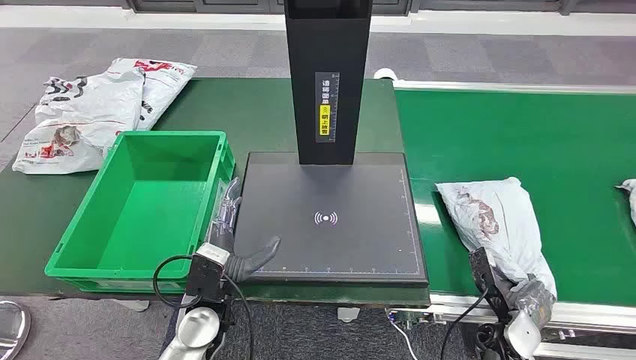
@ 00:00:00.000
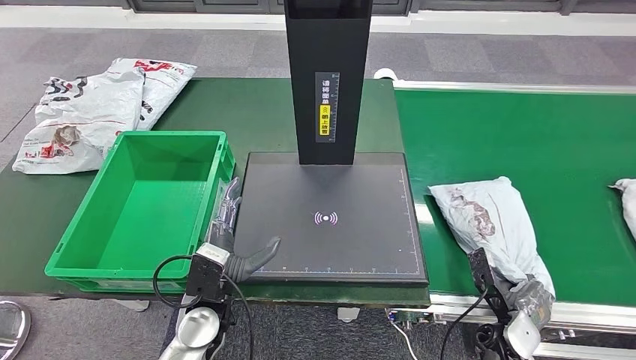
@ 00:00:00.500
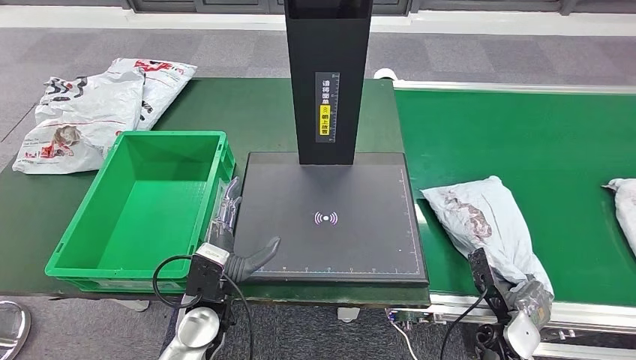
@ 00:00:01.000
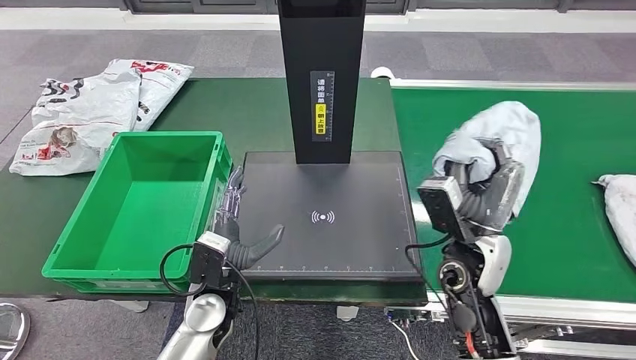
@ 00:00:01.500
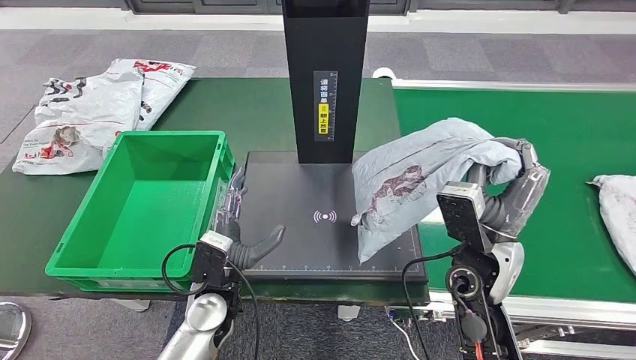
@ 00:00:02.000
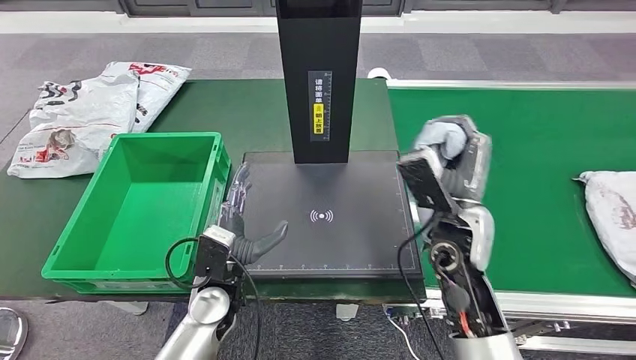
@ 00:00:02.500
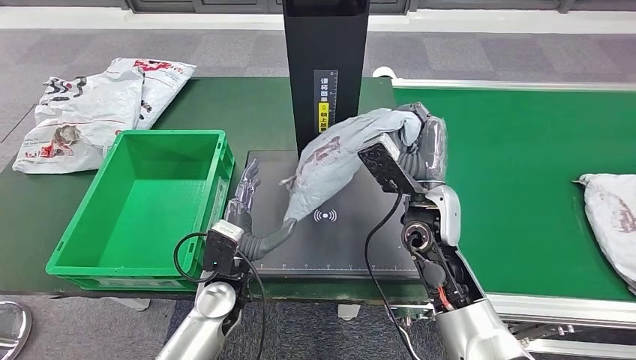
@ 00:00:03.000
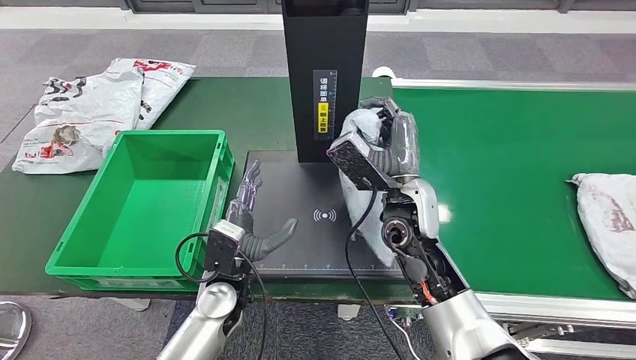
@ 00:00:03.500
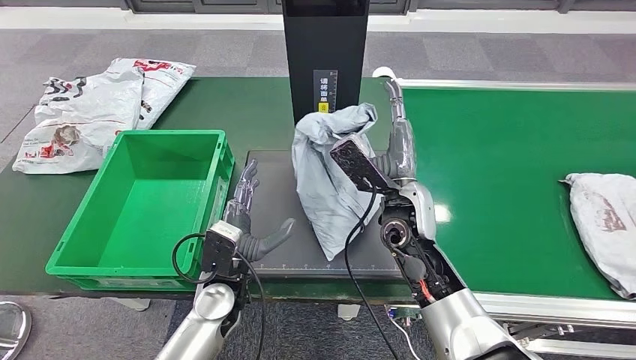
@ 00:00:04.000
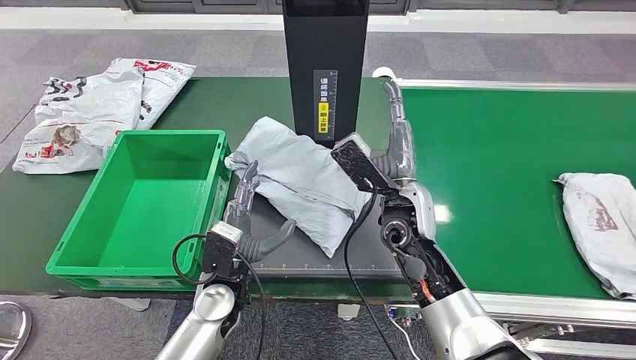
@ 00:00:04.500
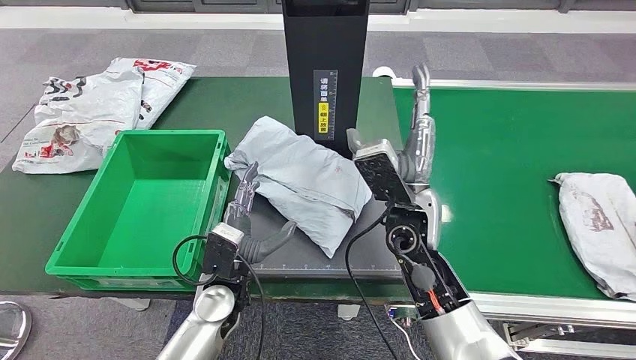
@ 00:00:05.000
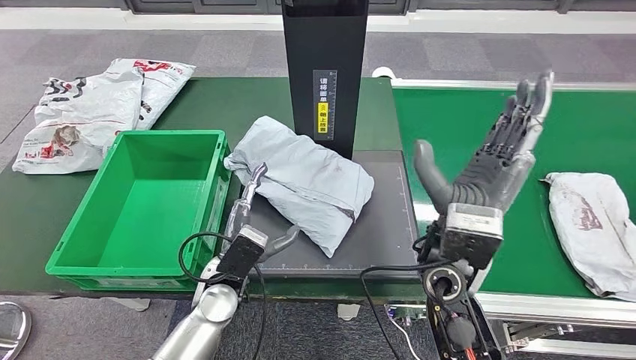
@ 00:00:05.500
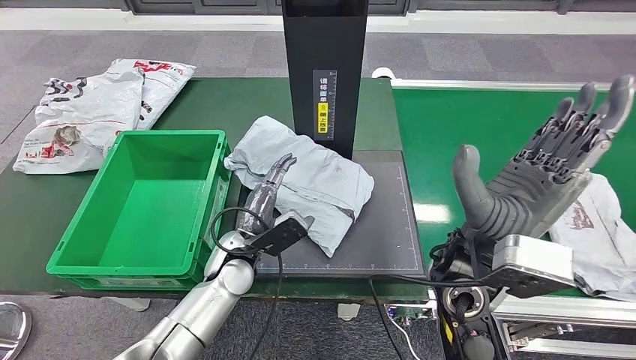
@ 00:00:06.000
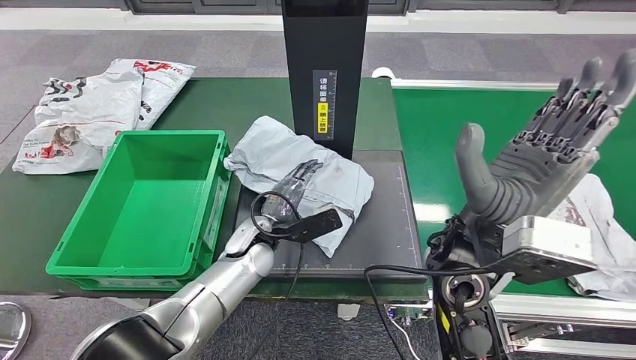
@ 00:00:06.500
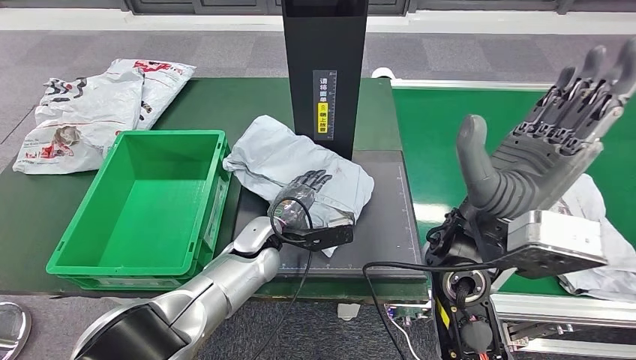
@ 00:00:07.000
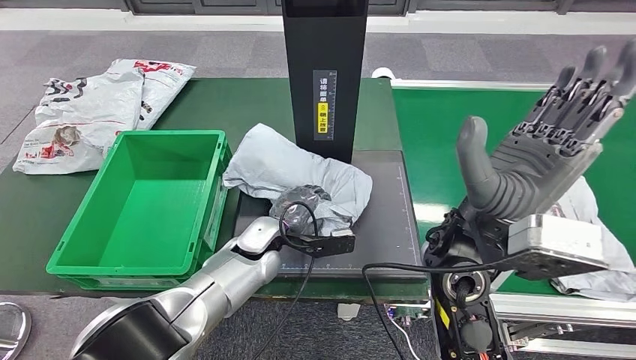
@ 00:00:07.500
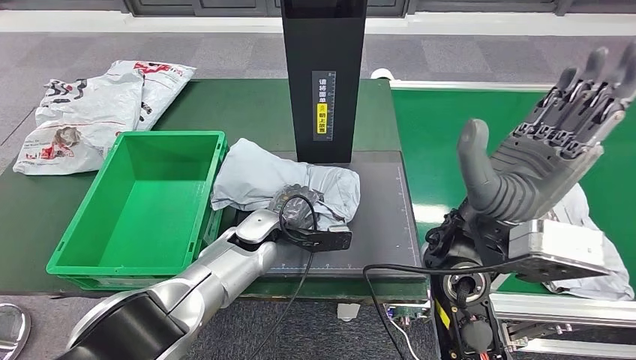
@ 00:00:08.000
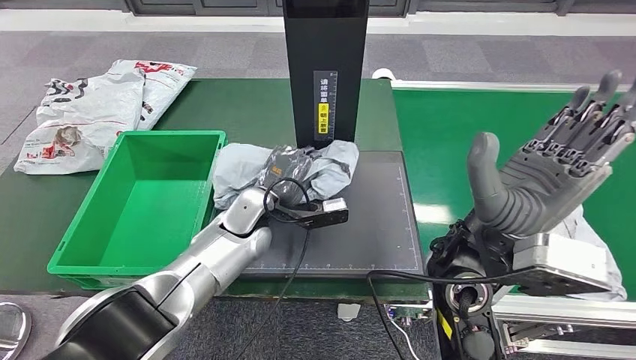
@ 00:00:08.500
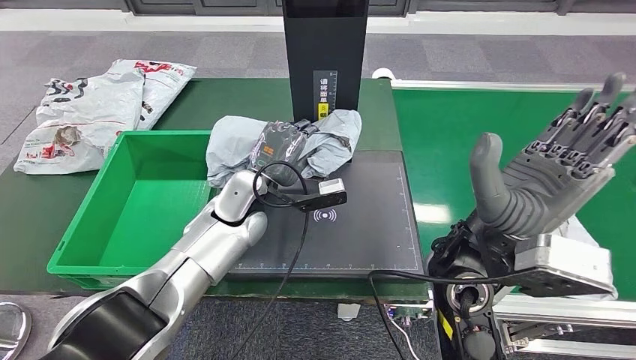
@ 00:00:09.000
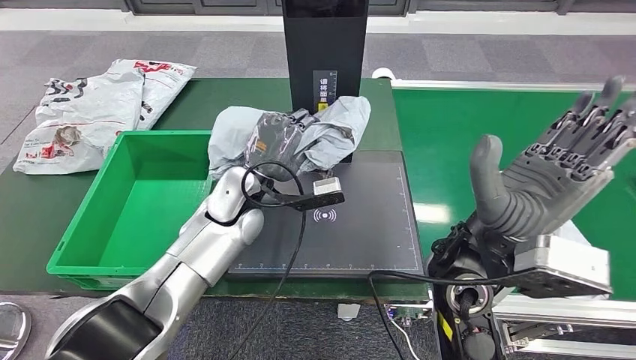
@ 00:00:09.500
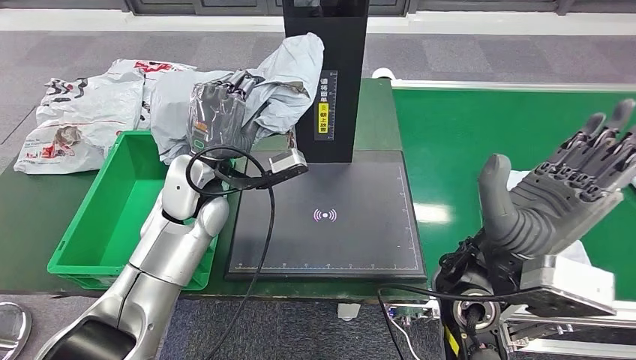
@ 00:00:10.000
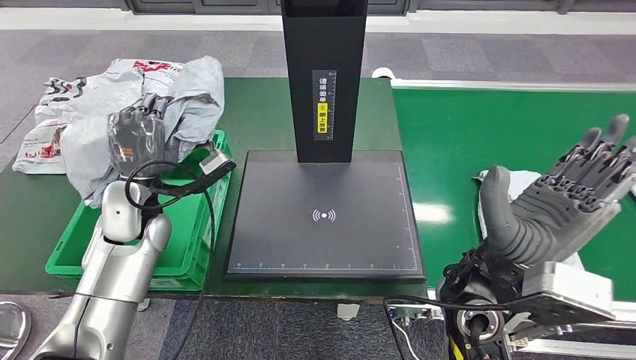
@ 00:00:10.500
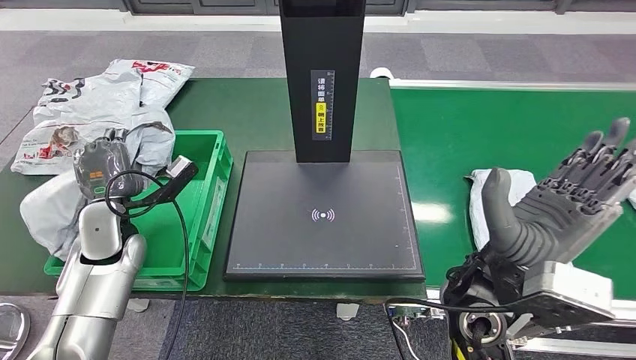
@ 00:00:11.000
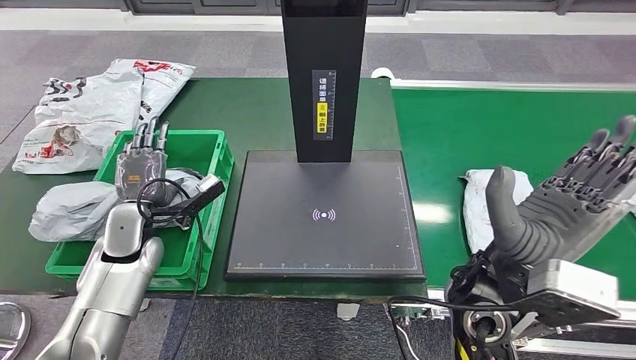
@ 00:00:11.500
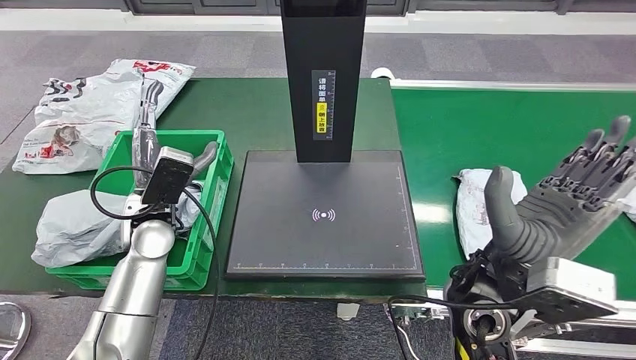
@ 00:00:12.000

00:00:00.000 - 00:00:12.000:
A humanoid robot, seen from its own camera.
Step, 00:00:00.000 - 00:00:02.000: Take the parcel off the conveyor belt.
Step, 00:00:02.500 - 00:00:05.500: Place the parcel onto the inbound machine.
Step, 00:00:06.000 - 00:00:09.500: Pick up the parcel from the inbound machine.

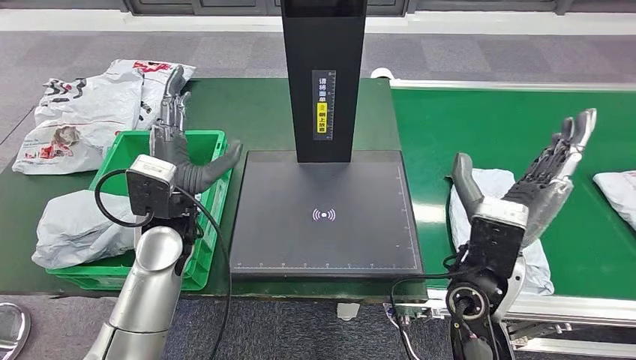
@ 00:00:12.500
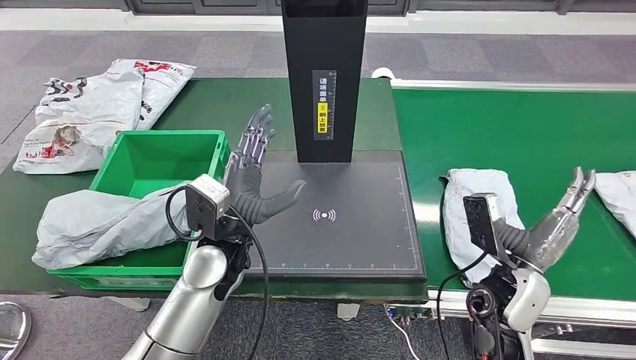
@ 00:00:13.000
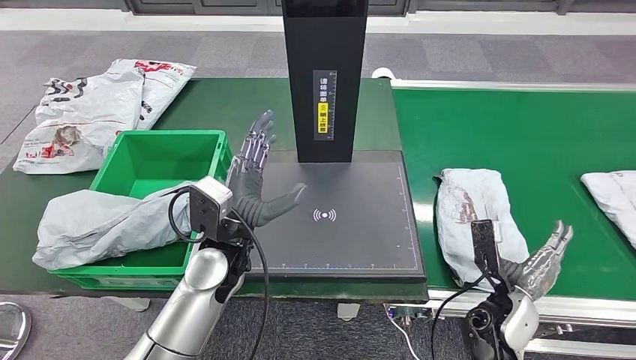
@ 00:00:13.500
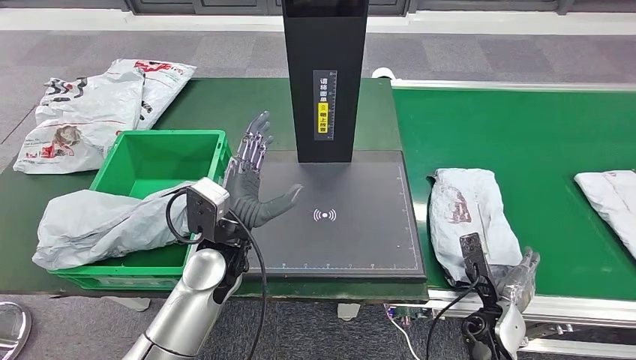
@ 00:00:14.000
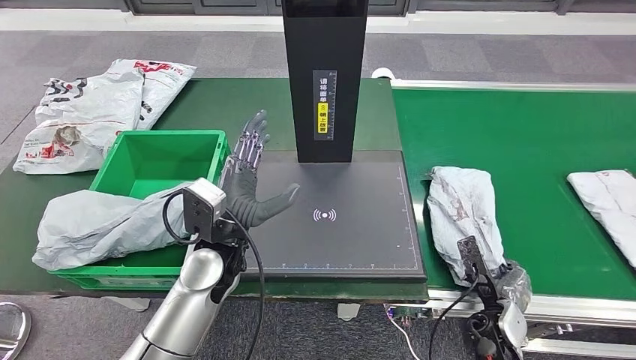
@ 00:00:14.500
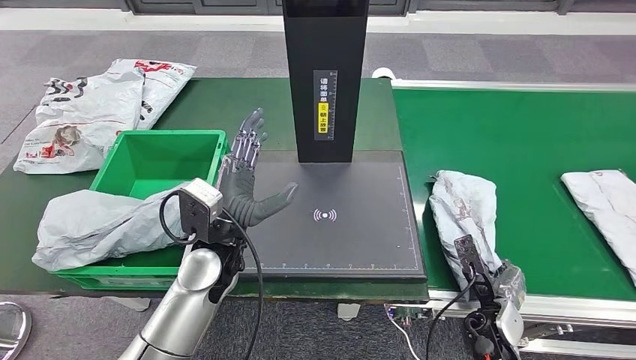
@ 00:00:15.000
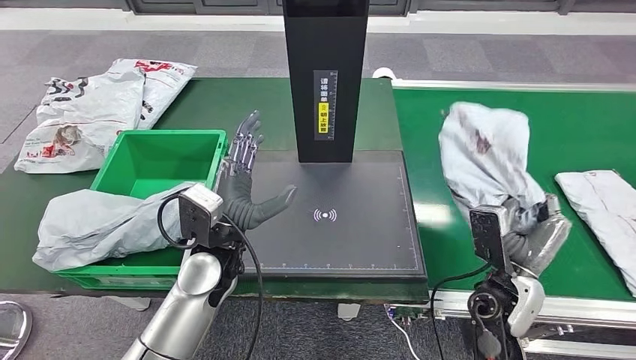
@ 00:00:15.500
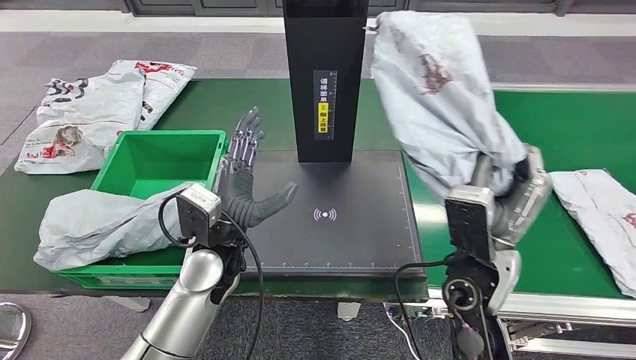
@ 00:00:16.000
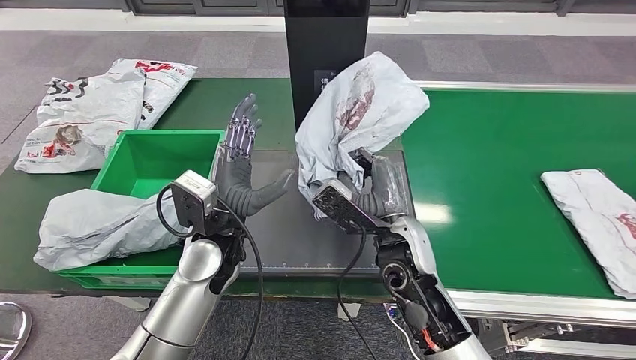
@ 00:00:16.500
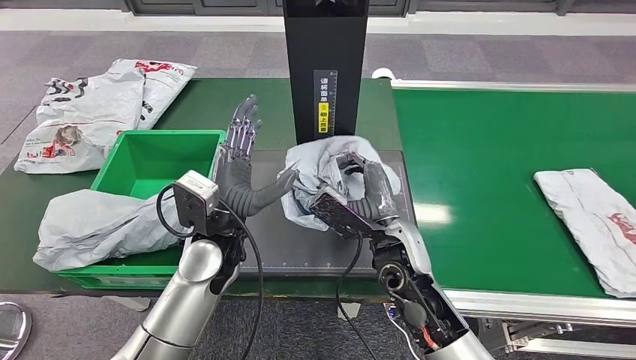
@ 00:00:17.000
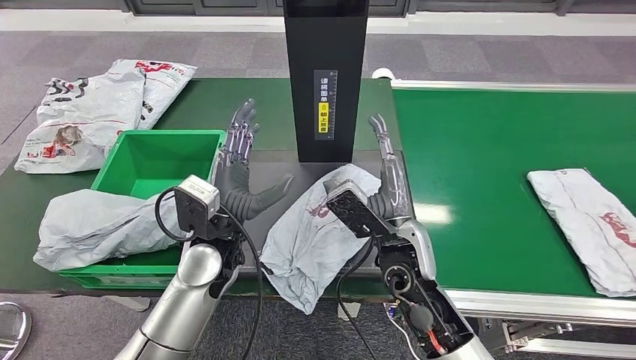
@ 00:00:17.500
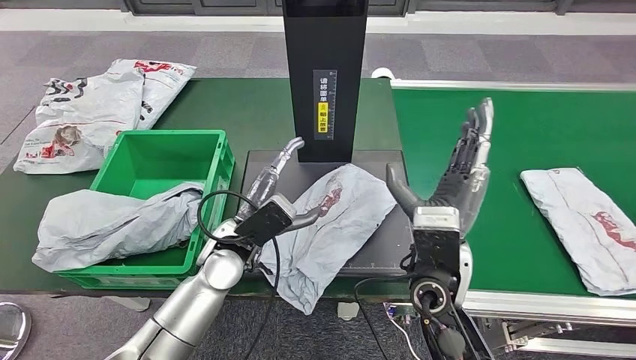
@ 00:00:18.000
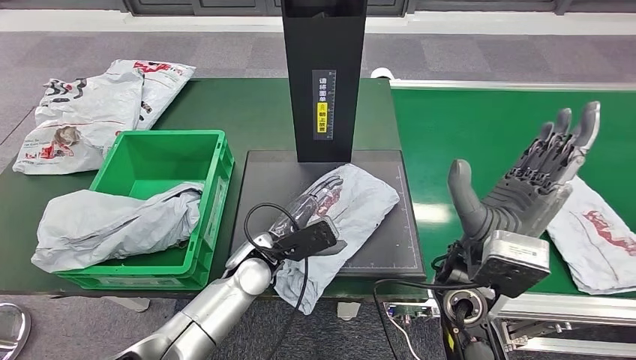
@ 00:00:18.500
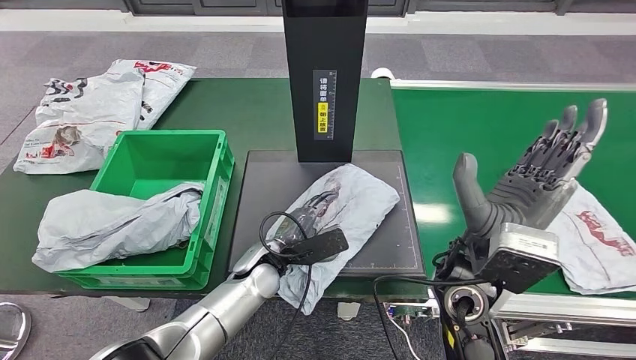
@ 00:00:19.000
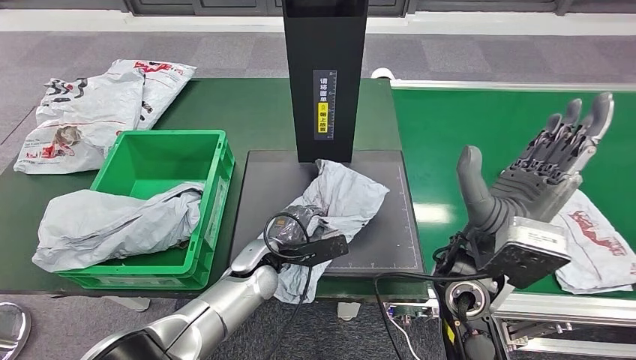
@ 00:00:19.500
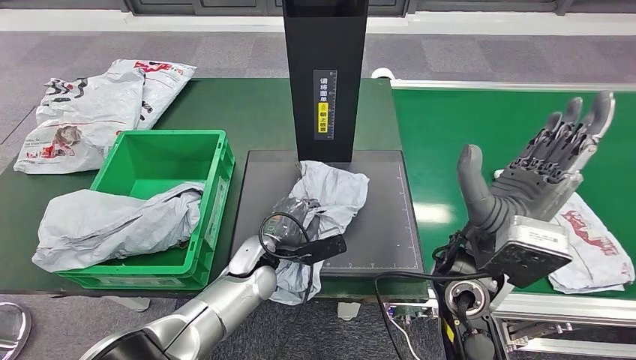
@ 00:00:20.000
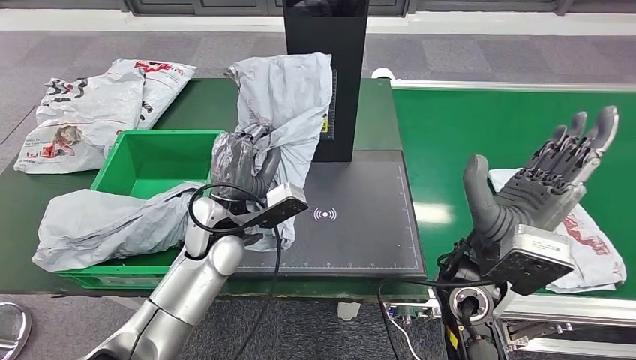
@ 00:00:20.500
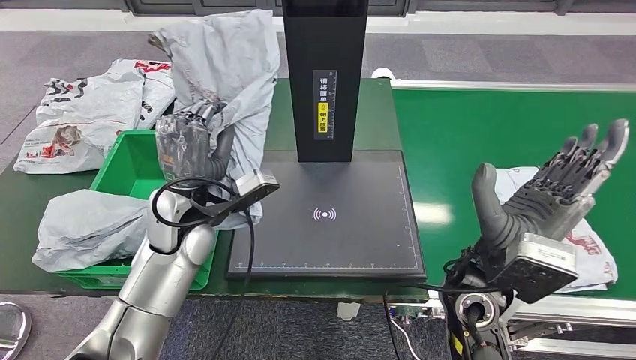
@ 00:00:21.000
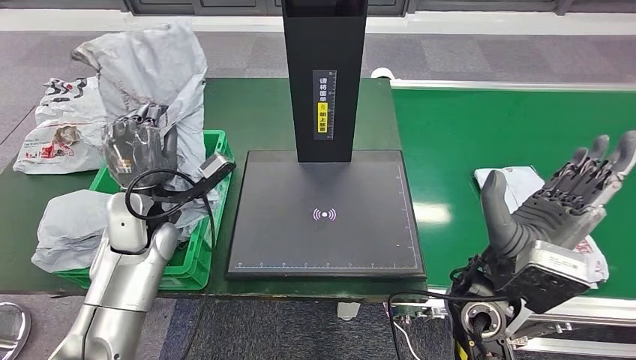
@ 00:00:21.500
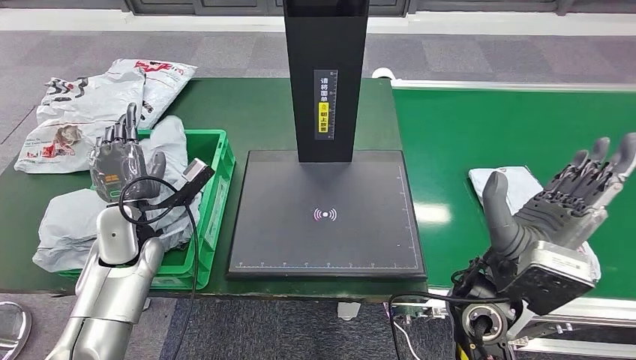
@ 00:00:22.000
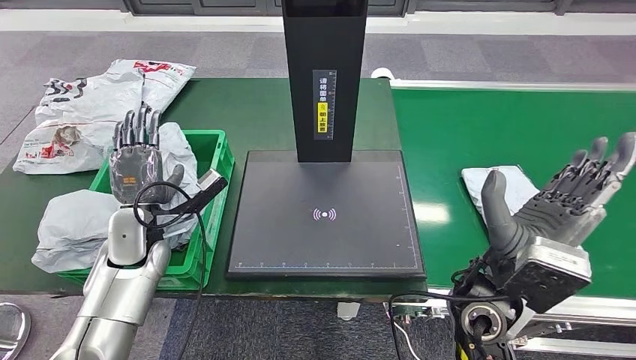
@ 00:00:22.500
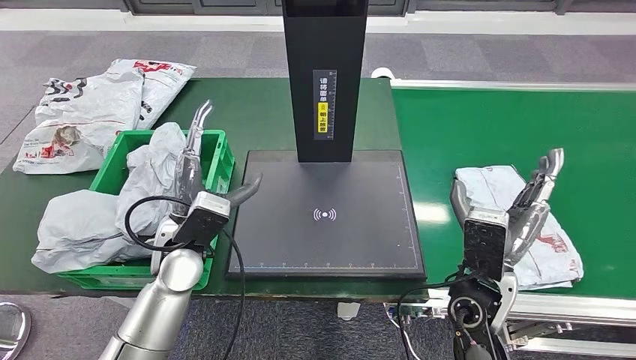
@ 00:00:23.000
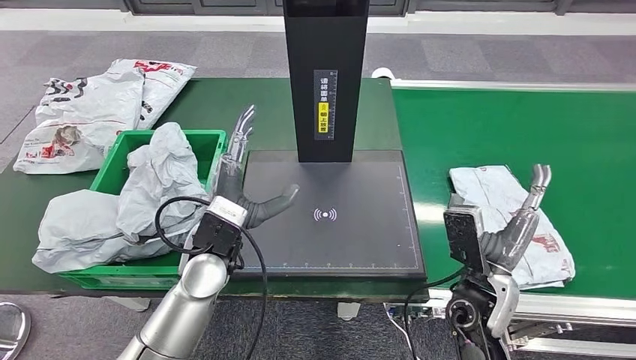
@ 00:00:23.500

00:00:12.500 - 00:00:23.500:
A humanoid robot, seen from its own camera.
Step, 00:00:14.000 - 00:00:15.500: Pick up the parcel from the conveyor belt.
Step, 00:00:16.000 - 00:00:17.500: Place the parcel onto the inbound machine.
Step, 00:00:18.000 - 00:00:21.000: Pick up the parcel from the inbound machine.
